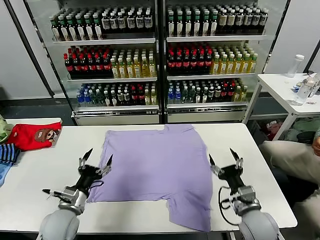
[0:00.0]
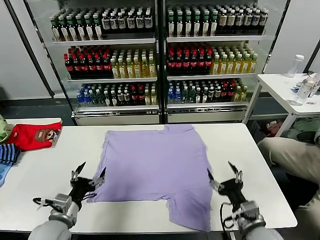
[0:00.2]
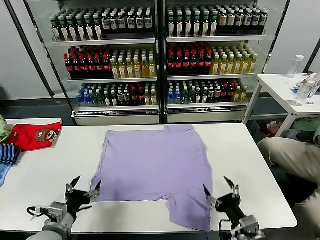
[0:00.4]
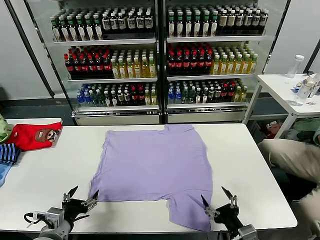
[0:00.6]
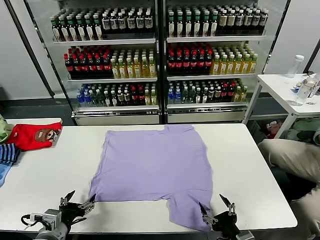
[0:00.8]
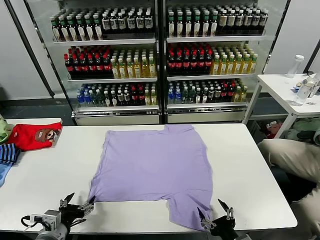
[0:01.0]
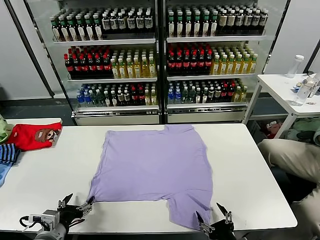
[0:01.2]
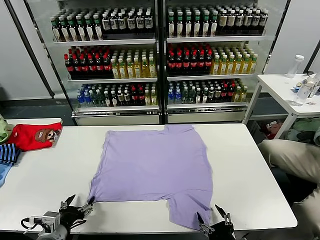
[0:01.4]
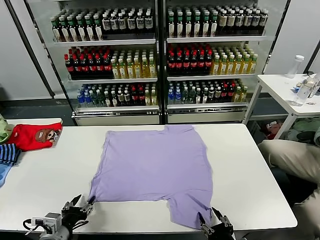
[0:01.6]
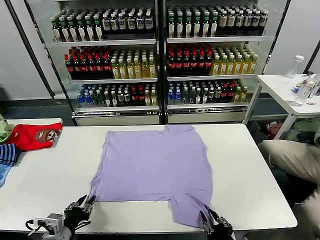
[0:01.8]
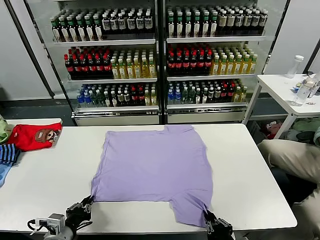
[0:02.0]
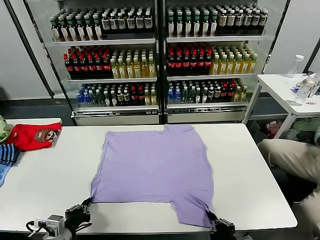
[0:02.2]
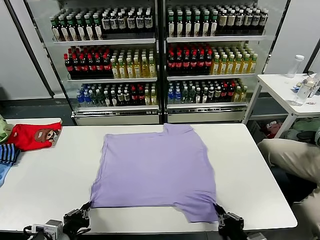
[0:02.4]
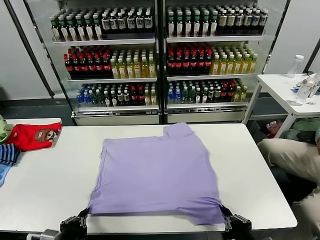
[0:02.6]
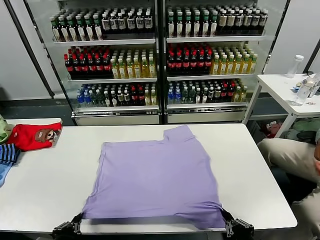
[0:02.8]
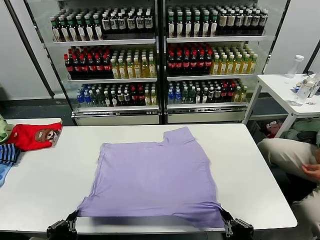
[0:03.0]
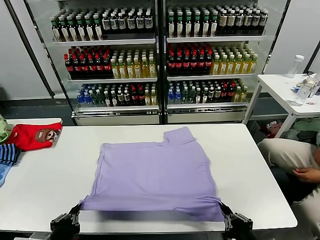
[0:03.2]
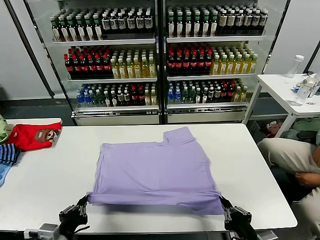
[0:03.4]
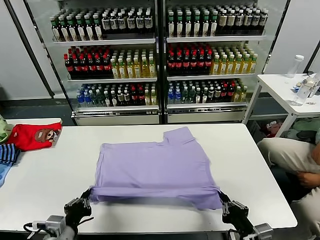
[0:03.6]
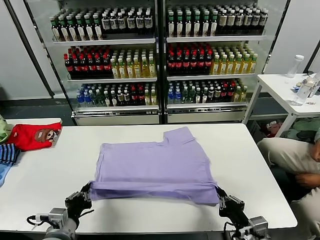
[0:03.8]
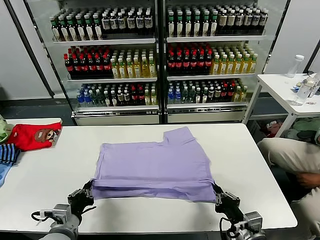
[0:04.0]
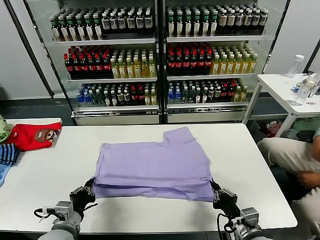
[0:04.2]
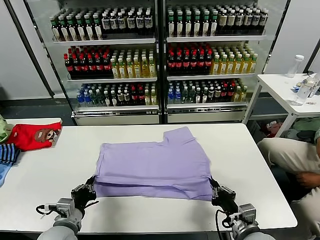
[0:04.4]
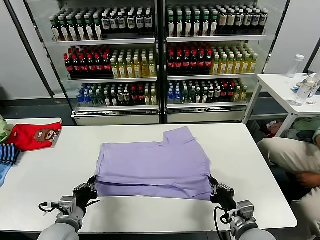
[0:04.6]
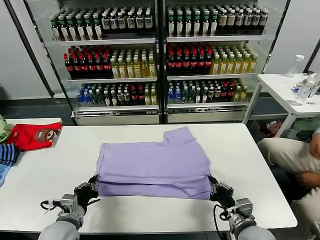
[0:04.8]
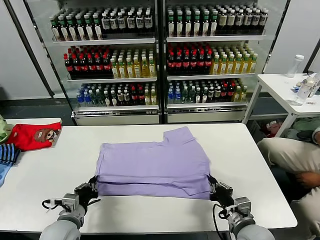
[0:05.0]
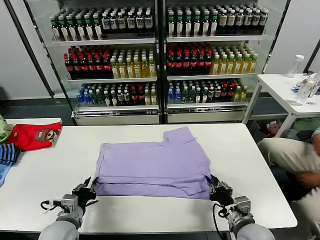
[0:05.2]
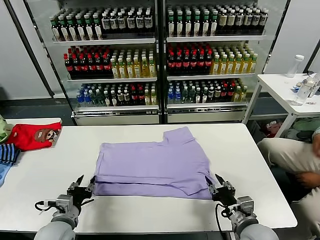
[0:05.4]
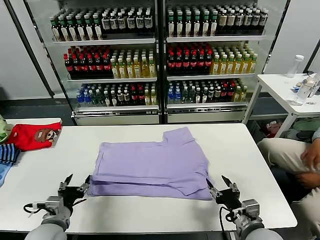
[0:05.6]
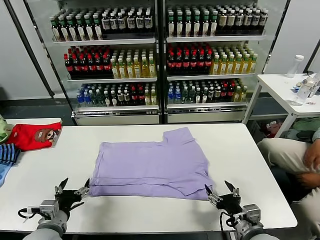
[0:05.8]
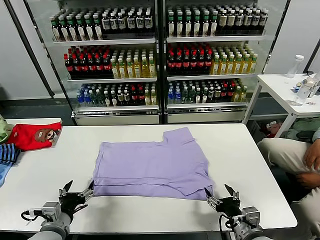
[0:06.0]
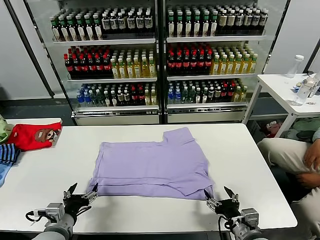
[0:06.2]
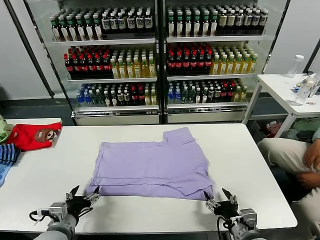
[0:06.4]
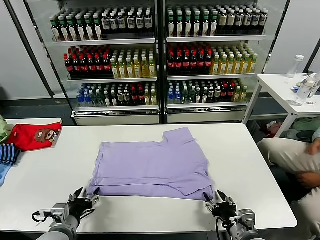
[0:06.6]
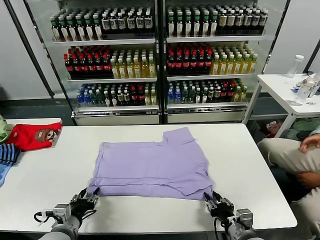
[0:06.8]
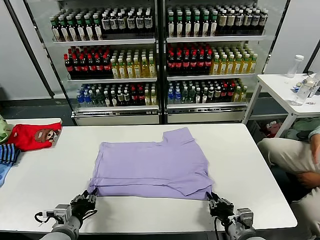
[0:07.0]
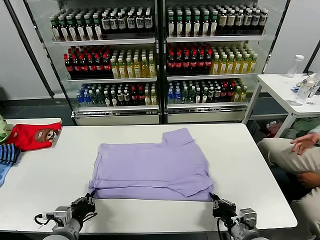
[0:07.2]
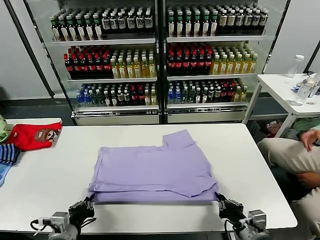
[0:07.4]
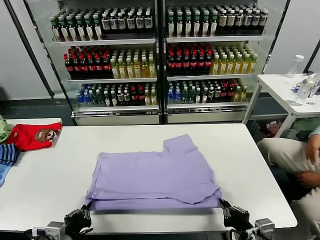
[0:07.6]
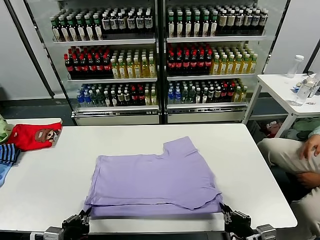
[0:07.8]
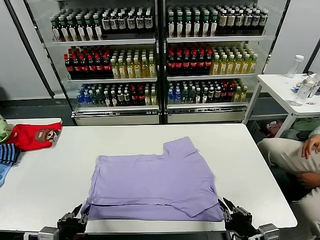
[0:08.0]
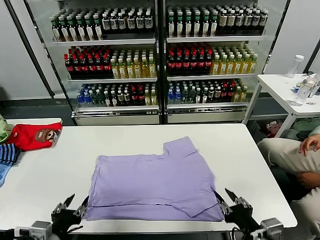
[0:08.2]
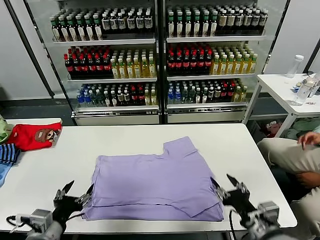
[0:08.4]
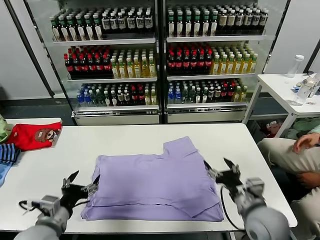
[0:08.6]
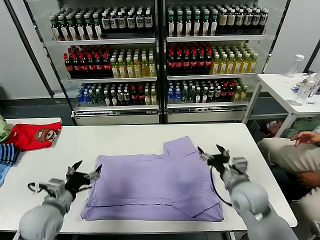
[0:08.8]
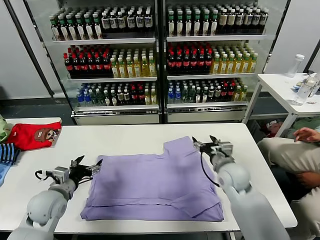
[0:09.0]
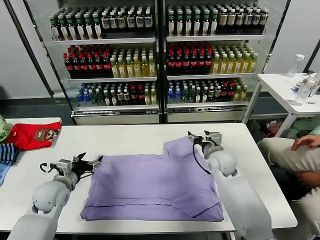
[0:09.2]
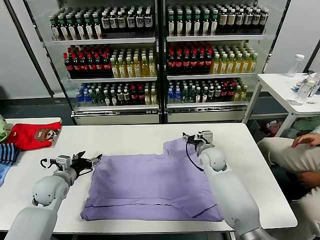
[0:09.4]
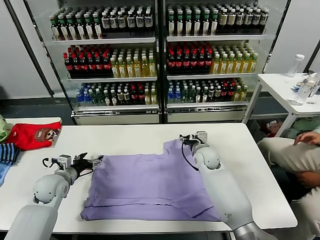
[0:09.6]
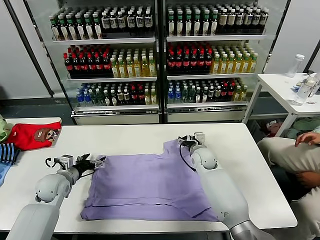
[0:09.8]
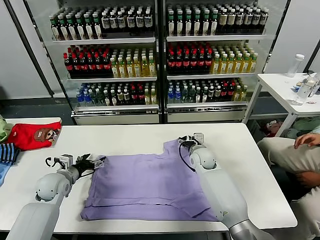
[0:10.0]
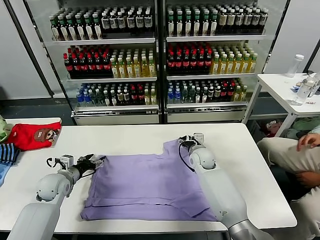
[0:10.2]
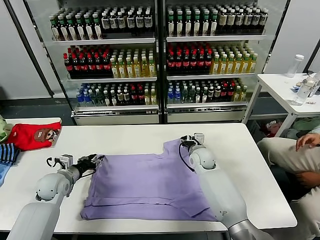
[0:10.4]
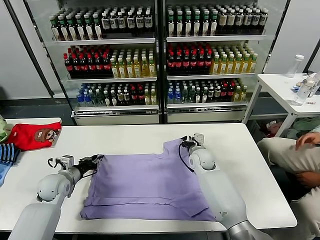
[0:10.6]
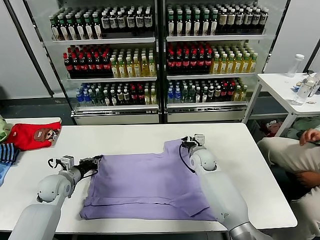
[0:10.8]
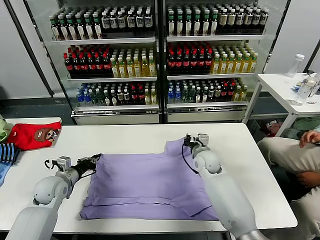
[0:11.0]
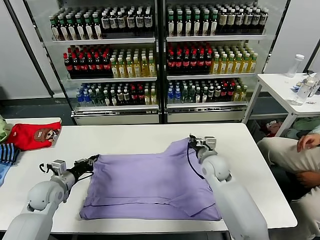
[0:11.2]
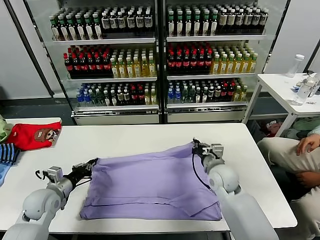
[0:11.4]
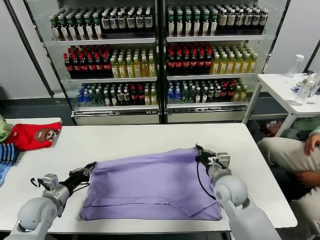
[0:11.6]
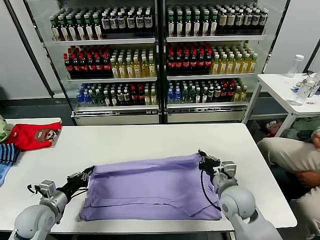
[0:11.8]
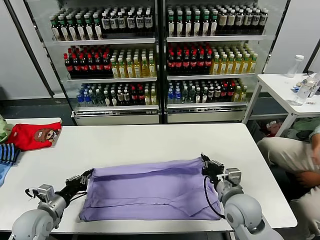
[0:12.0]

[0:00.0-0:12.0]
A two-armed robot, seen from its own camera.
Task of the whole recording: fold and organize the clothes.
Step, 0:00.0 to 0:02.0: use both grippers simultaneously to clamp the lower edge of the clothing fabric.
Step, 0:02.4 to 0:05.2: use both grippers to drag the lower edge of the fabric forward and fold it over the upper edge.
Step, 0:05.4 to 0:08.0: Drag the clothes downward with both gripper.
Step, 0:08.2 to 0:10.8: use both grippers simultaneously to clamp the upper edge of the clothing fabric.
0:01.6 to 0:03.0: The left gripper shifts roughly 10 cm backward and upward, and closes up. The right gripper is displaced upward by approximately 5 cm, and closes up.
0:03.0 to 0:04.4: The two grippers go approximately 10 cm forward.
0:04.4 to 0:06.0: The left gripper opens. Meanwhile the right gripper opens its fingers.
0:06.0 to 0:07.6: The right gripper ends up about 5 cm from where it was, and closes up, while the left gripper moves backward, roughly 5 cm, and closes up.
0:07.6 to 0:09.0: The right gripper goes about 30 cm forward, and opens its fingers, while the left gripper shifts roughly 15 cm forward, and opens up.
0:09.0 to 0:10.4: The left gripper is displaced forward by roughly 10 cm, and closes. Meanwhile the right gripper shifts some 10 cm forward, to the left and downward, and closes.
0:10.4 to 0:12.0: The right gripper goes approximately 25 cm backward, and closes up, while the left gripper heads backward, covering about 15 cm, and closes its fingers.

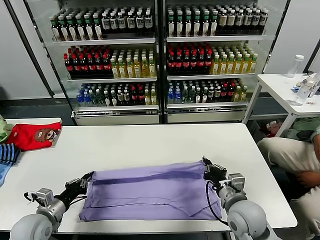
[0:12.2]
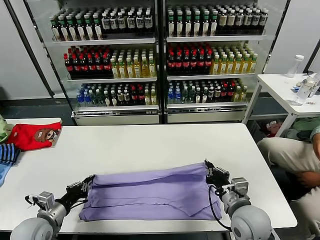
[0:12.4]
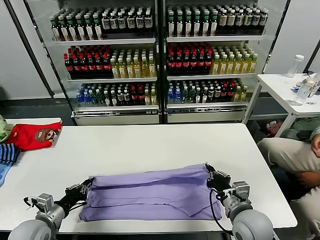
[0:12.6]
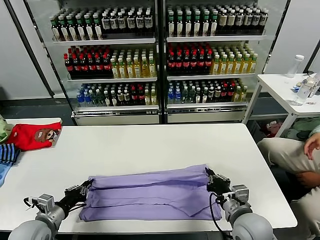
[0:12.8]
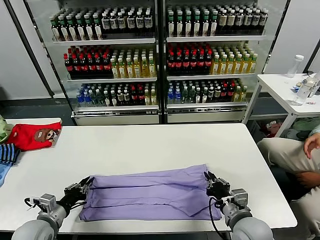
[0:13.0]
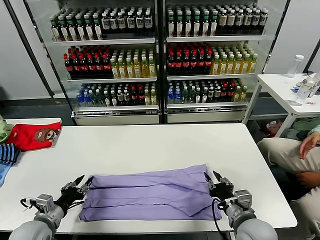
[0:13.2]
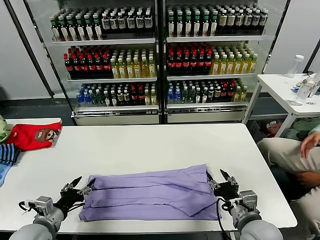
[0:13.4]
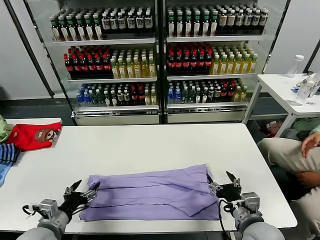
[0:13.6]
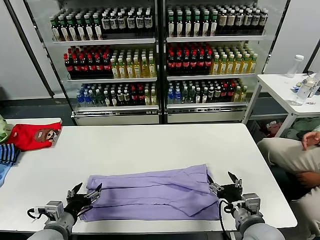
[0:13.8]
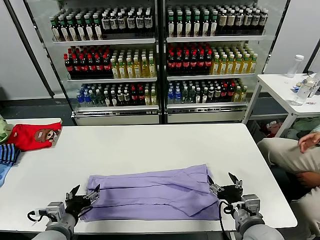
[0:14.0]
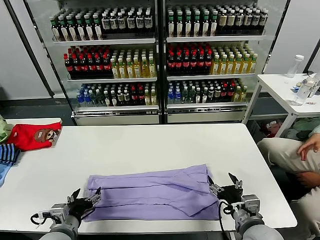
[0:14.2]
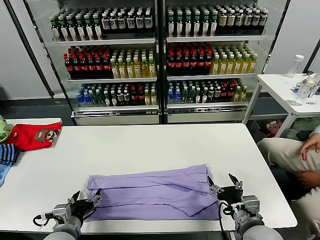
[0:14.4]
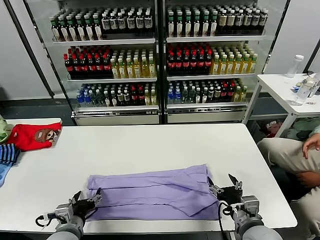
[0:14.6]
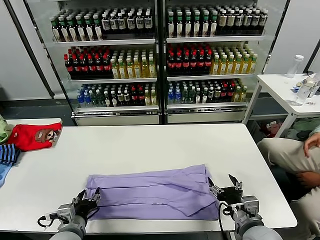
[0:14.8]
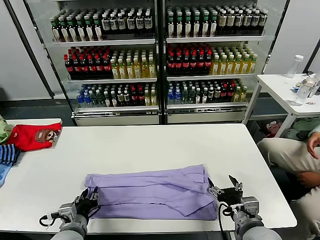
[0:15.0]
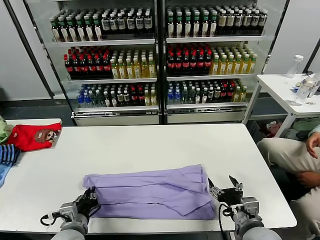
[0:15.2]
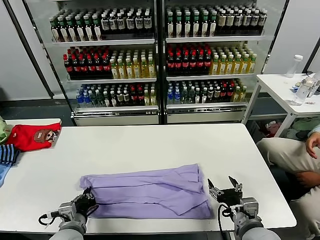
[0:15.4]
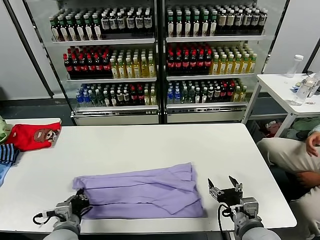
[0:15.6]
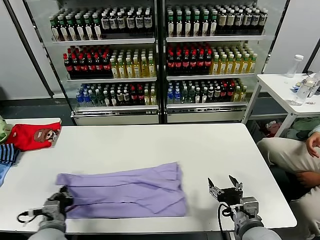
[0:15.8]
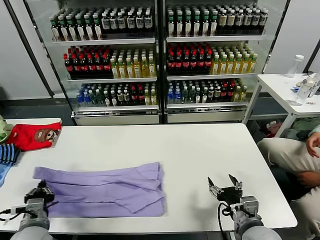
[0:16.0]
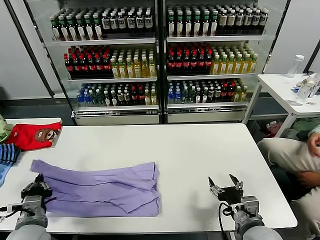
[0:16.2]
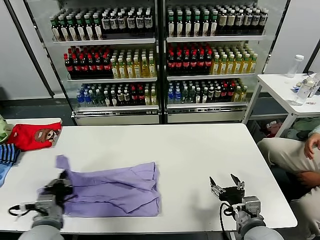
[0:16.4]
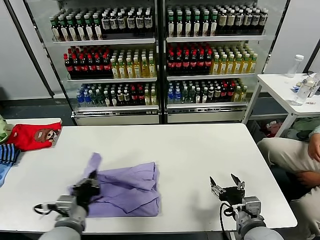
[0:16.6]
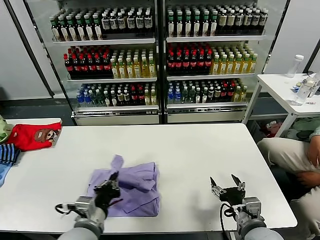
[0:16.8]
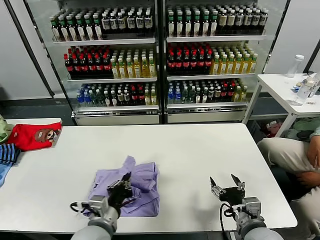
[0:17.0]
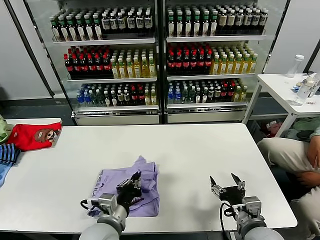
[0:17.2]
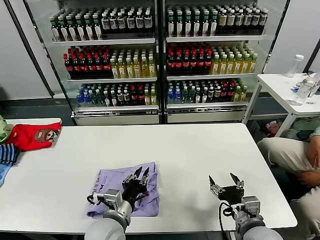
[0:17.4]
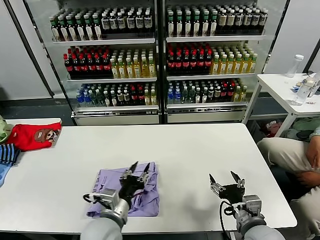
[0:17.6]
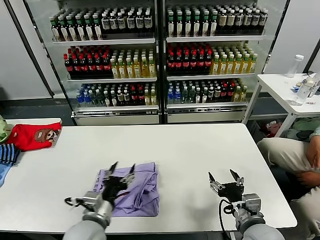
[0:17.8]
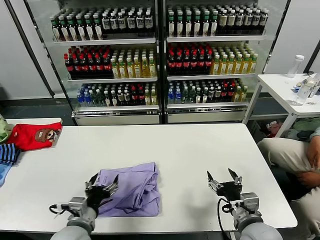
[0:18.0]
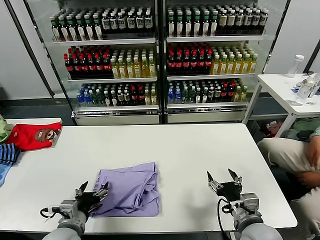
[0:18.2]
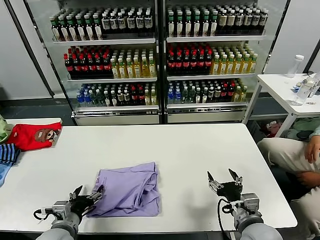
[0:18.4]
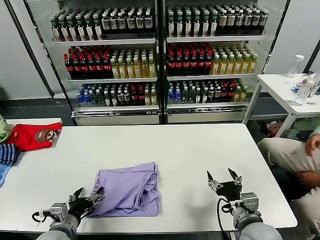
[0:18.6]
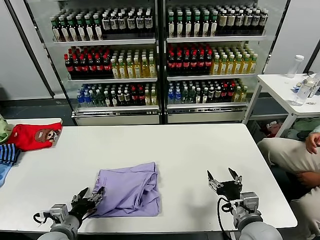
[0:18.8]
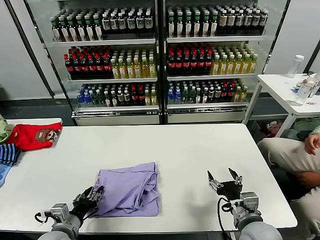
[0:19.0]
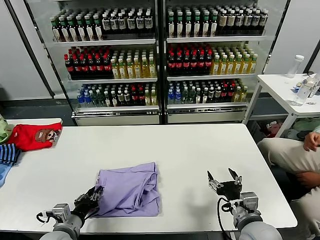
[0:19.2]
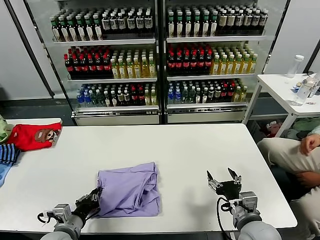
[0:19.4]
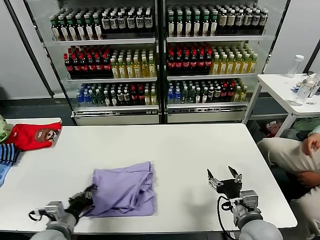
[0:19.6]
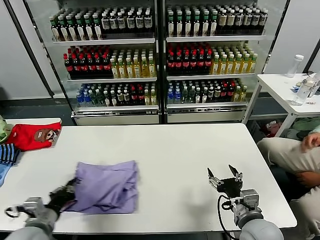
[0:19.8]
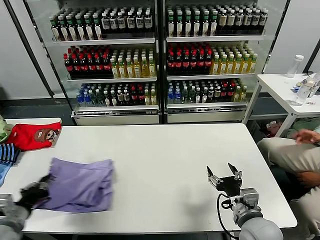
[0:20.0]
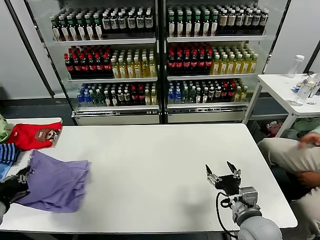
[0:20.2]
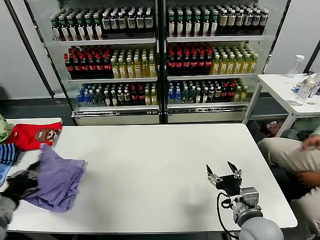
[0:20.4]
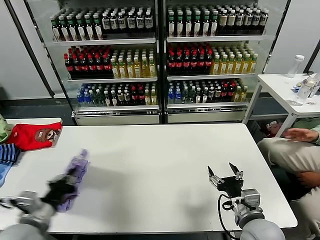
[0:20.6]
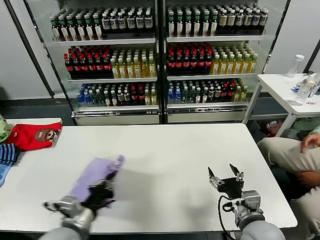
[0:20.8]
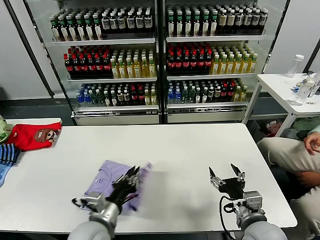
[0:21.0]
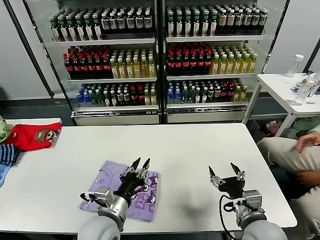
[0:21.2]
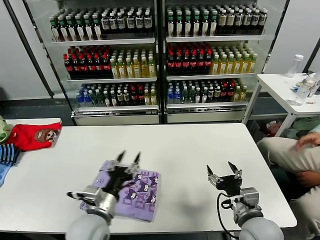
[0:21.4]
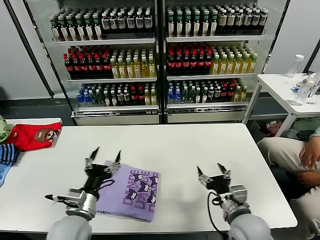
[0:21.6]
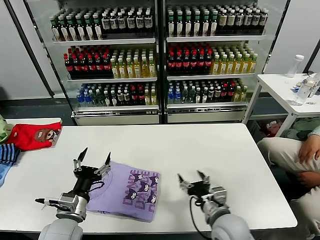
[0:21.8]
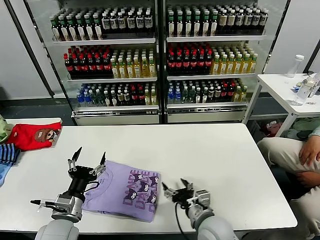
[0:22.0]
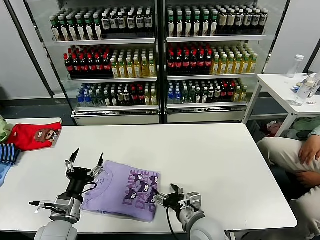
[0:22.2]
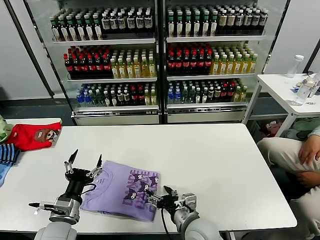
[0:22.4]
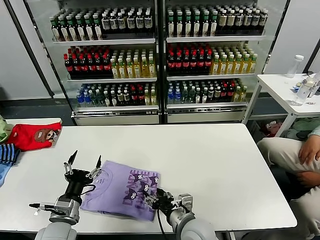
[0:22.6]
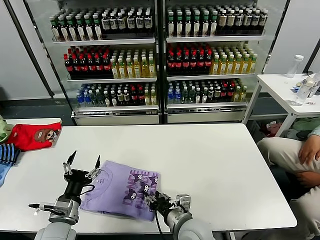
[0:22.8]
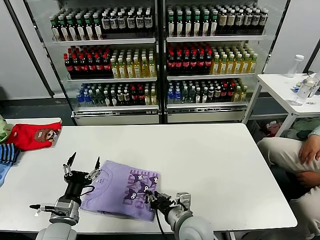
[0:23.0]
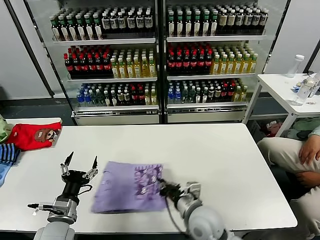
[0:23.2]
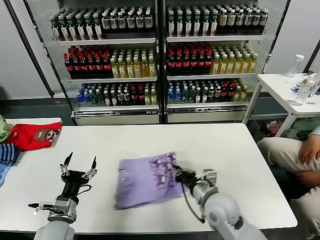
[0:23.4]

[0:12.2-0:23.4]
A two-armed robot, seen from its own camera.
Task of the whole recording: fold and organize the clothes.
Step, 0:12.2 to 0:13.4: use both grippers to drag the upper edge of the fabric backward and fold it over the lower edge.
Step, 0:13.6 to 0:15.4: use the left gripper to clamp the left edge of the fabric.
Step, 0:15.6 to 0:17.8: use the left gripper to drag the left edge of the fabric to the left and folds it over the right edge.
Step, 0:18.0 to 0:21.2: Flip the folded clothes over with left gripper.
0:12.2 to 0:13.8: The right gripper travels backward by roughly 5 cm, and opens; the left gripper travels to the right by approximately 5 cm, and opens.
0:13.8 to 0:15.4: The left gripper moves some 5 cm, and closes its fingers.
0:15.4 to 0:17.0: The left gripper moves to the right and upward, approximately 10 cm.
0:17.0 to 0:18.6: The left gripper goes about 15 cm to the left and downward, and opens its fingers.
0:18.6 to 0:20.2: The left gripper moves to the left and upward, some 20 cm, and closes up.
0:20.2 to 0:21.8: The left gripper goes roughly 20 cm to the right, and opens up. The right gripper travels to the left by approximately 5 cm.
0:21.8 to 0:23.4: The left gripper changes place by some 5 cm; the right gripper is displaced forward by some 5 cm, moves roughly 10 cm to the left and comes back, and closes.
